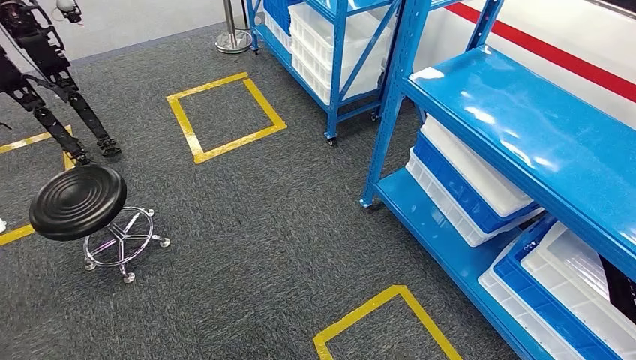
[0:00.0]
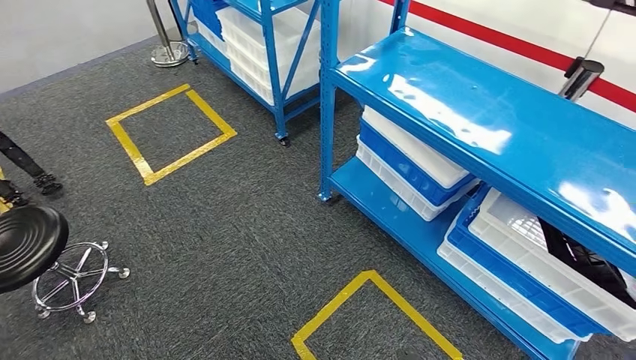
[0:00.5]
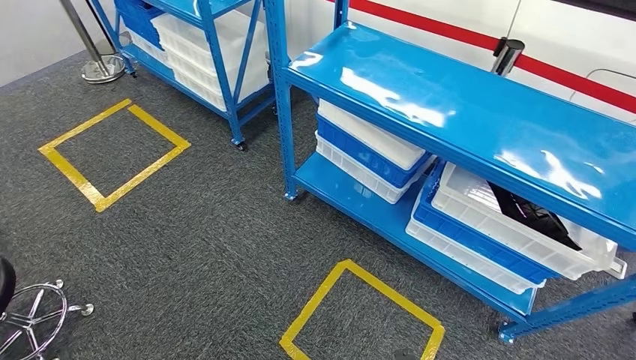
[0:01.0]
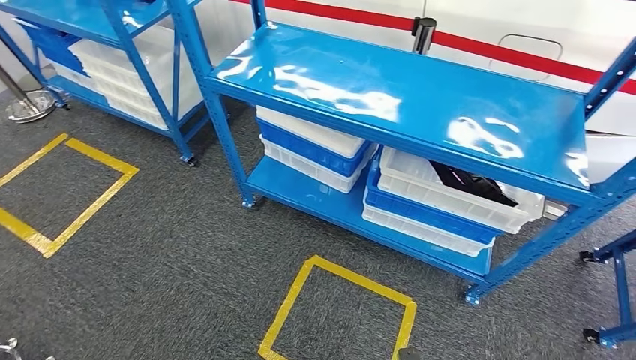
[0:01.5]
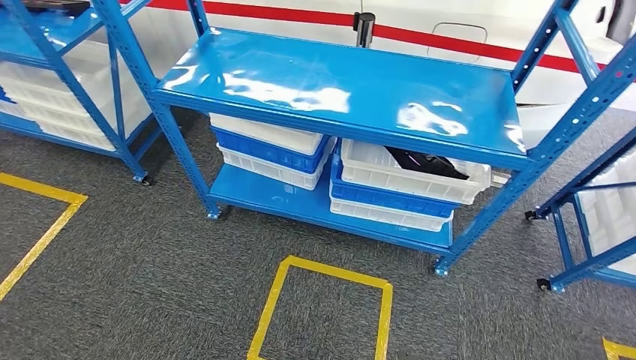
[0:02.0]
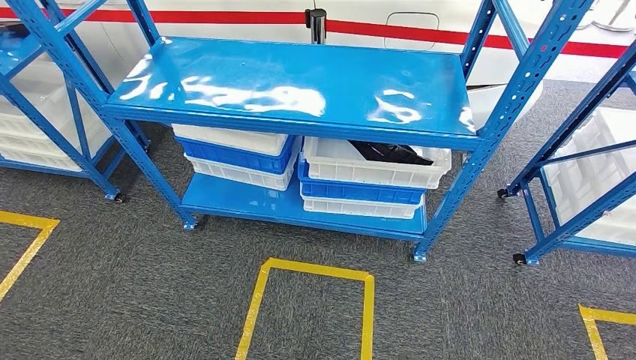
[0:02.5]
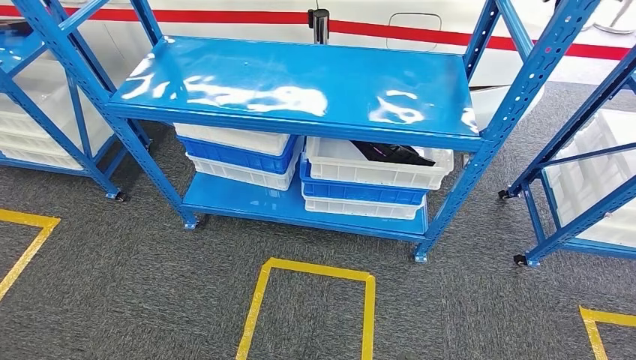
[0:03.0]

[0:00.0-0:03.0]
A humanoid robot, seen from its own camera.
Step, 0:00.0 to 0:03.0: Return to the initial position at the shelf.

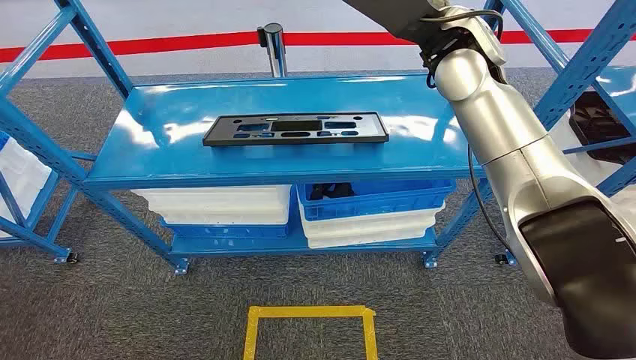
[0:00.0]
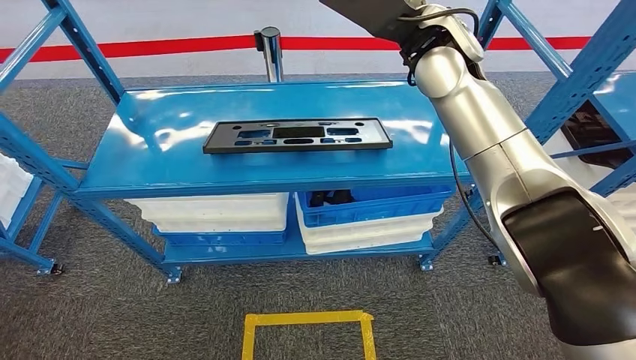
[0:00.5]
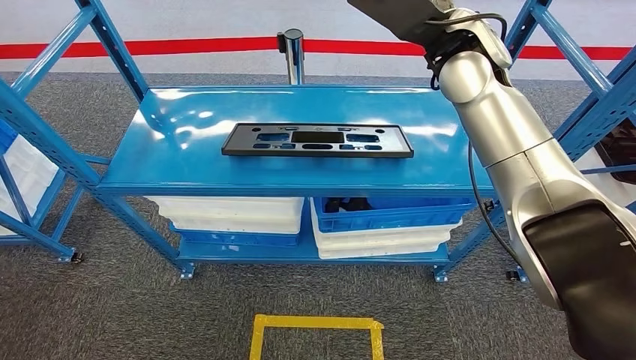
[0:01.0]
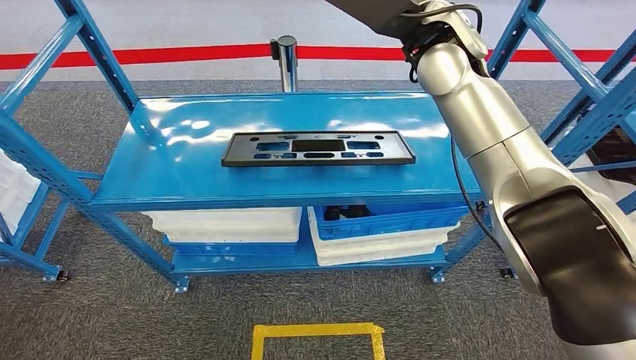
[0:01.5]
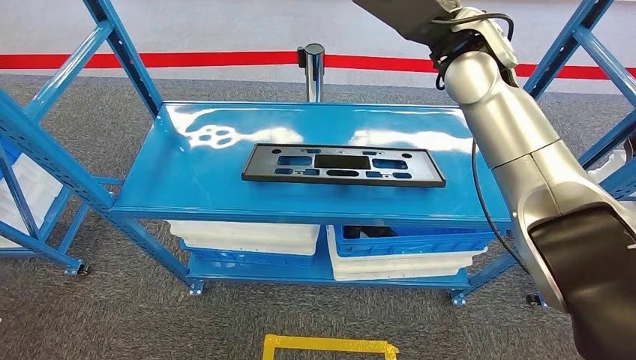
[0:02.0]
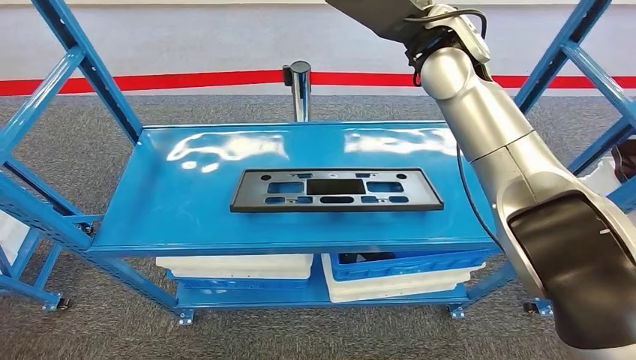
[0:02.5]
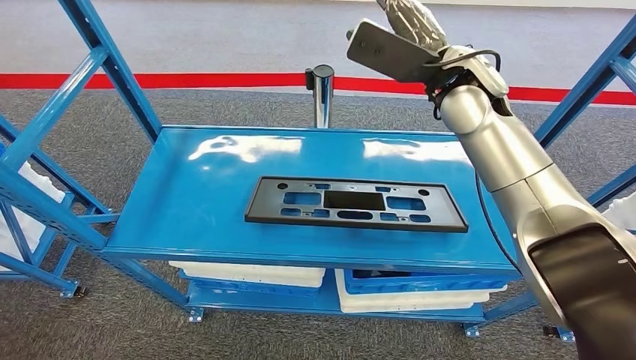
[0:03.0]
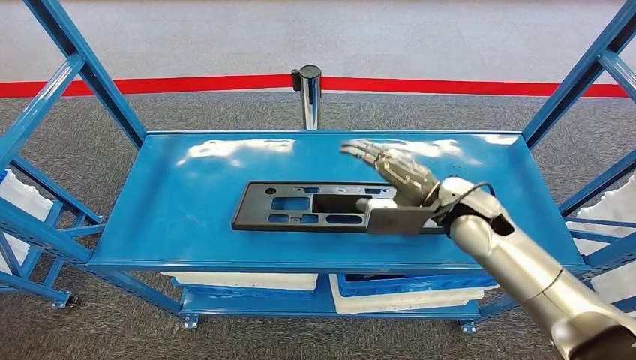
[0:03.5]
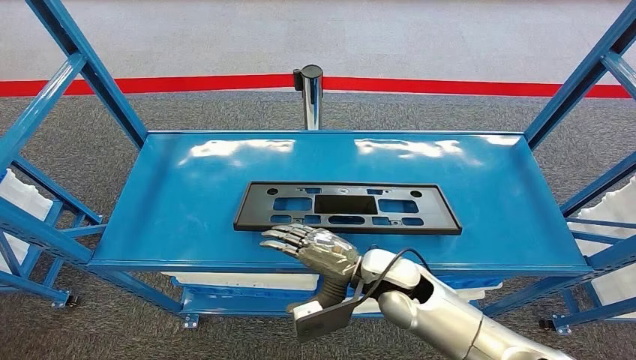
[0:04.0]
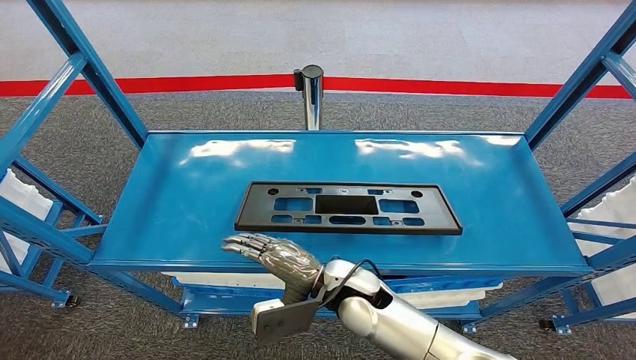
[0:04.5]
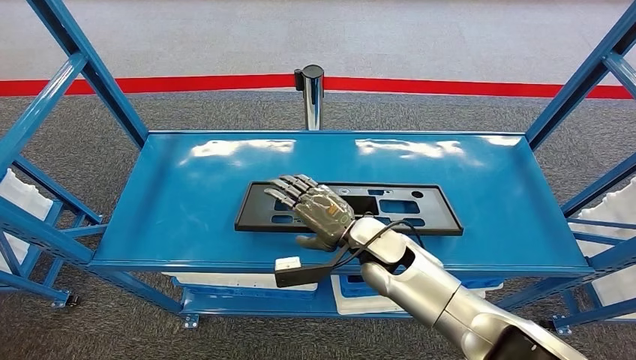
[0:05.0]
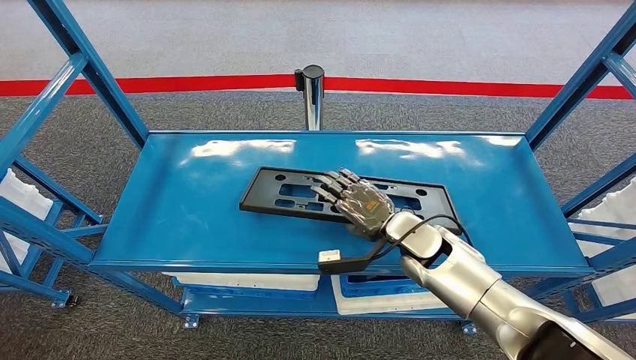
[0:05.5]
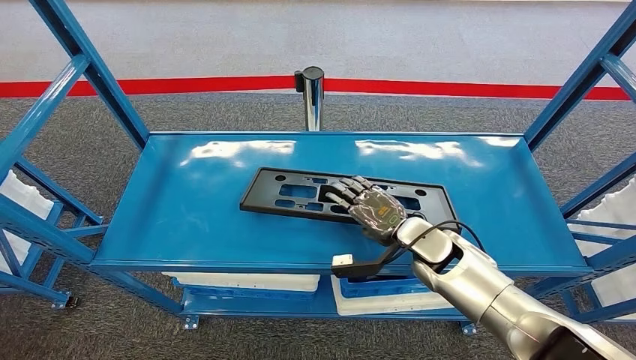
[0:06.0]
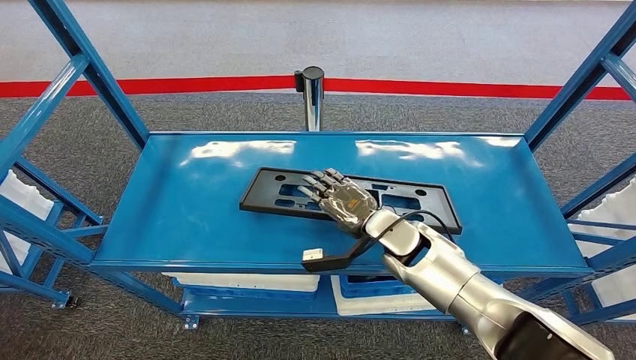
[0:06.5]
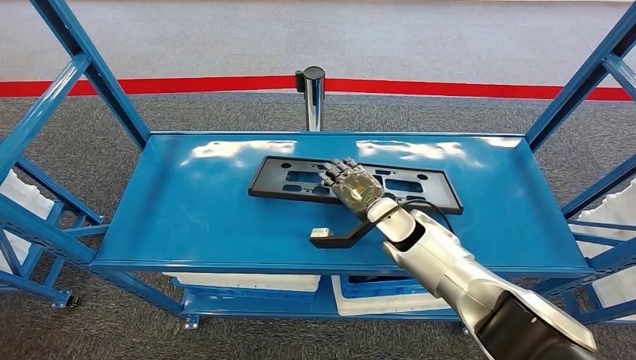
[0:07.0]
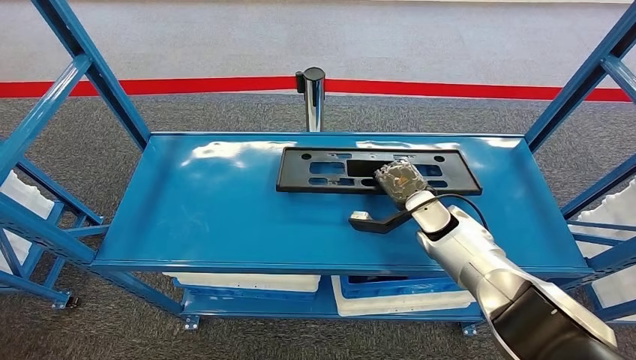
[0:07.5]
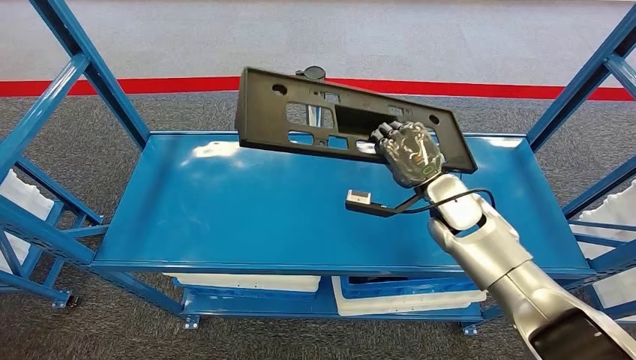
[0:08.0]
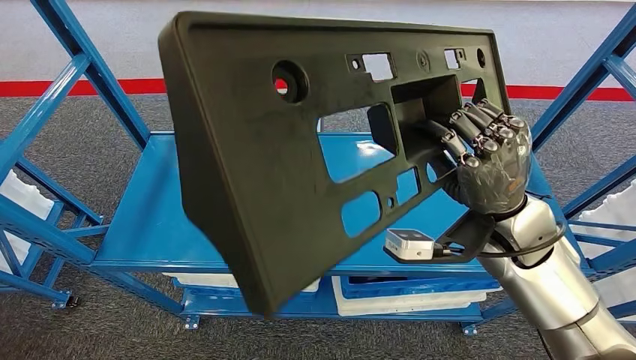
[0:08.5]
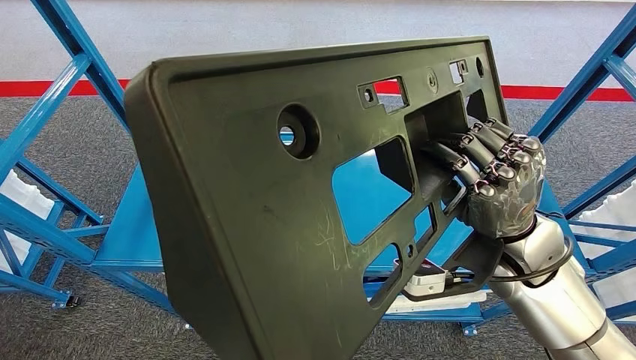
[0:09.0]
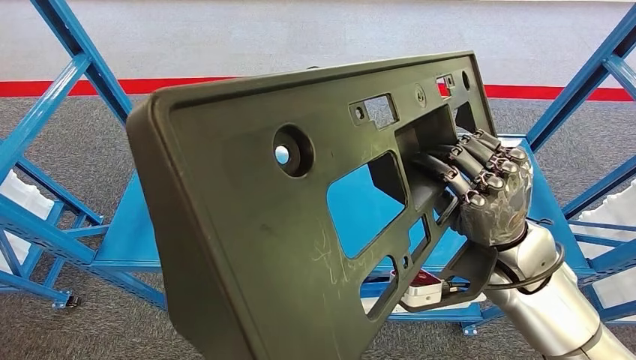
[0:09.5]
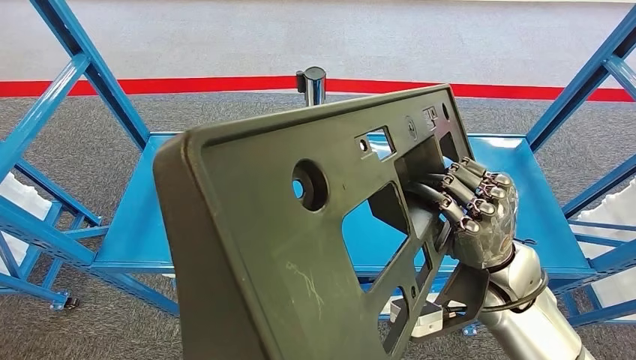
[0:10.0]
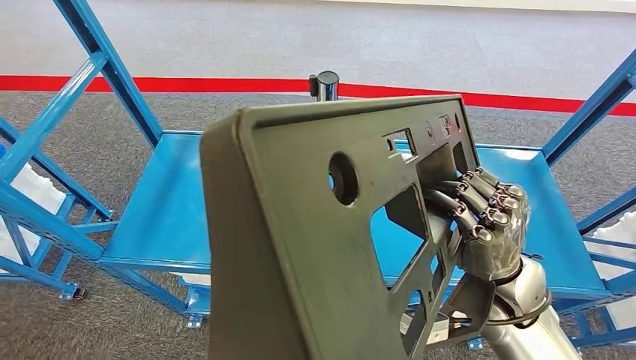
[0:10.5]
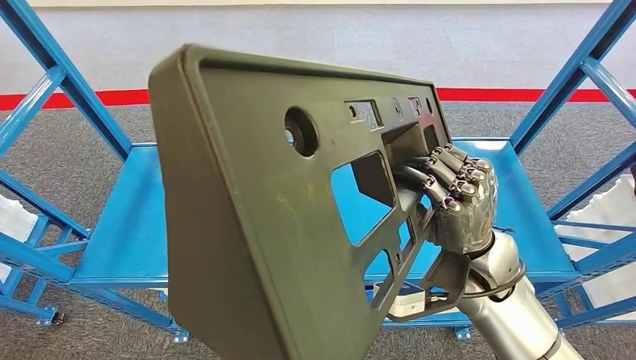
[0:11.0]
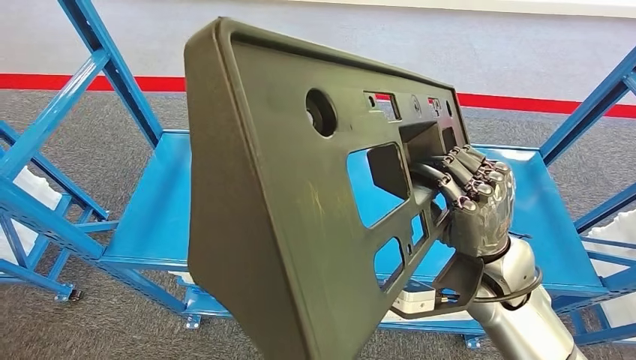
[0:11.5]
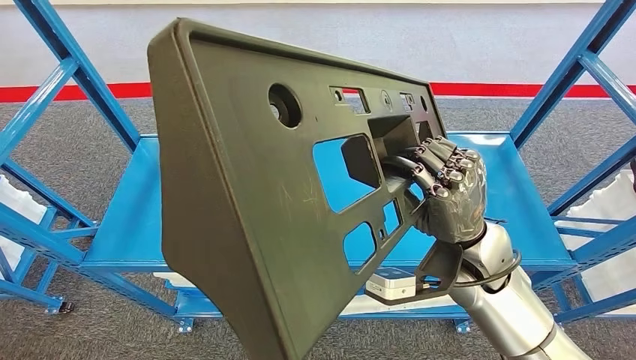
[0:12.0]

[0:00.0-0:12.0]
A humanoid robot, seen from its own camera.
Step, 0:00.0 to 0:10.5: Pick up the large material from the shelf.
0:04.0 to 0:06.0: The right hand heads to the right and forward, covering approximately 10 cm.

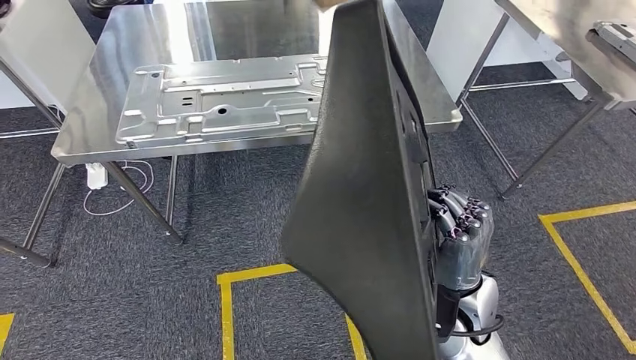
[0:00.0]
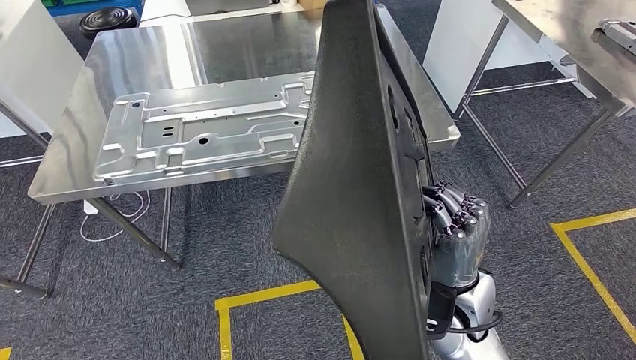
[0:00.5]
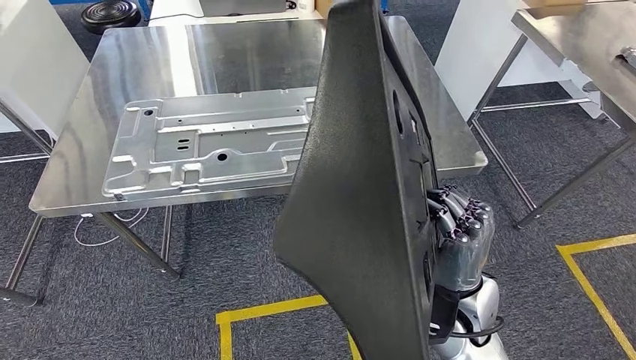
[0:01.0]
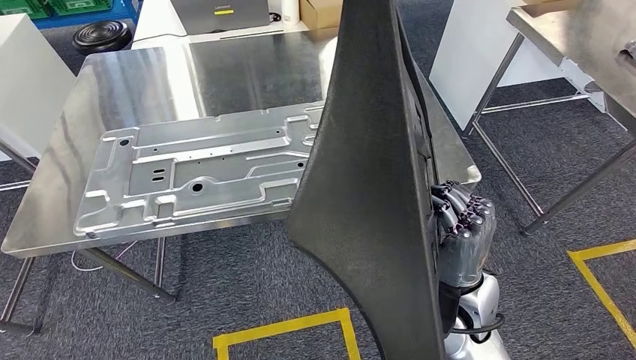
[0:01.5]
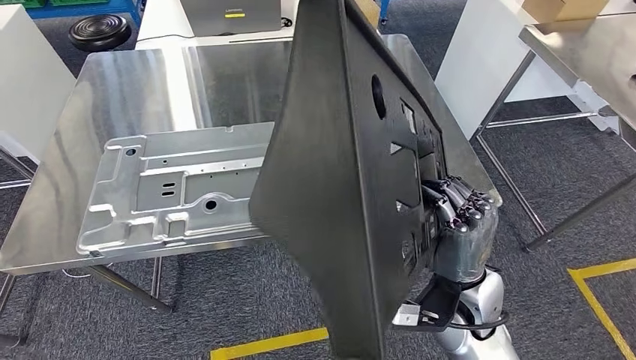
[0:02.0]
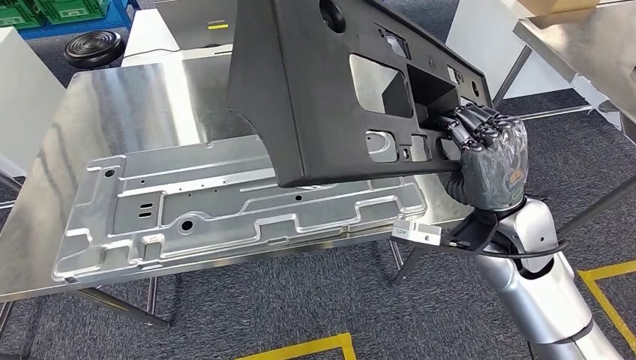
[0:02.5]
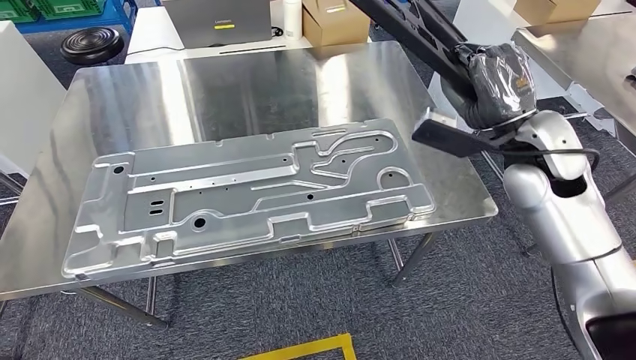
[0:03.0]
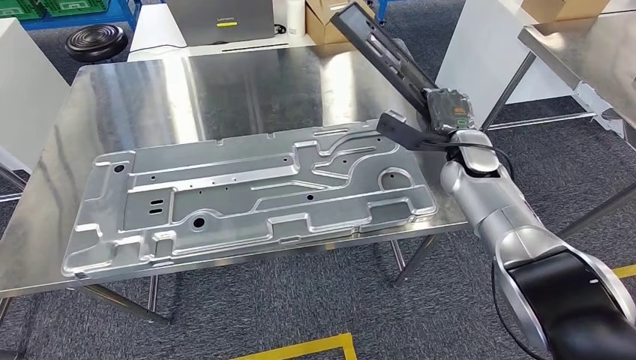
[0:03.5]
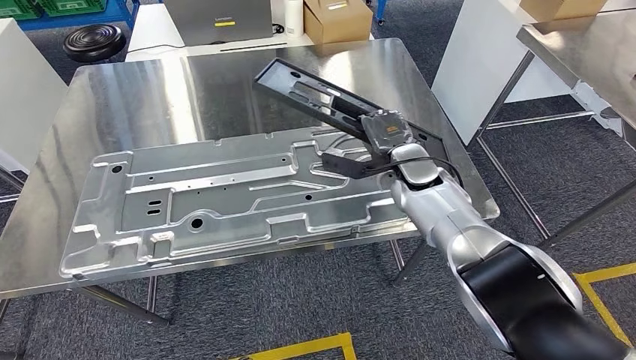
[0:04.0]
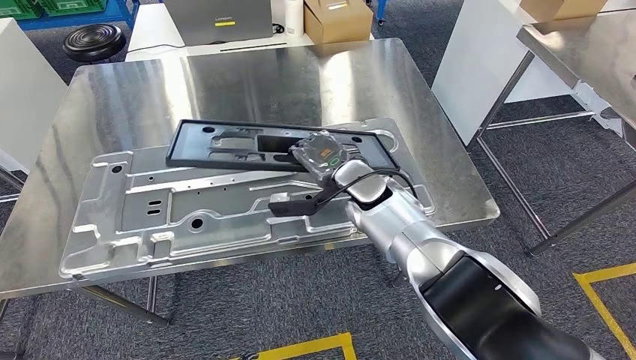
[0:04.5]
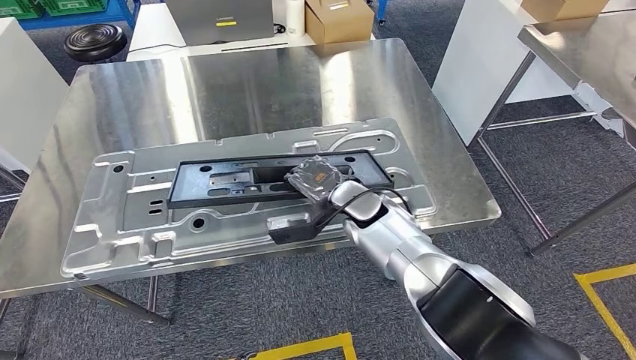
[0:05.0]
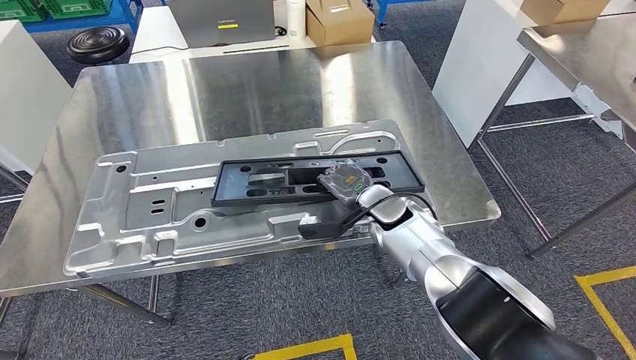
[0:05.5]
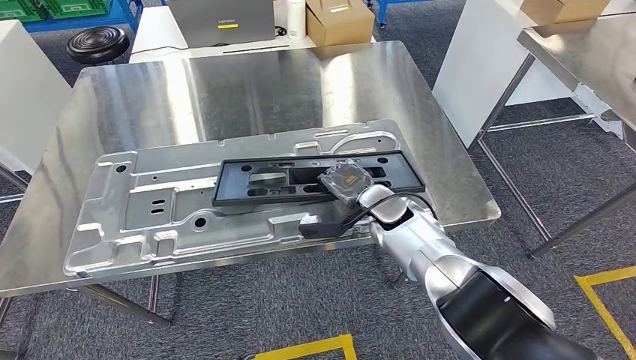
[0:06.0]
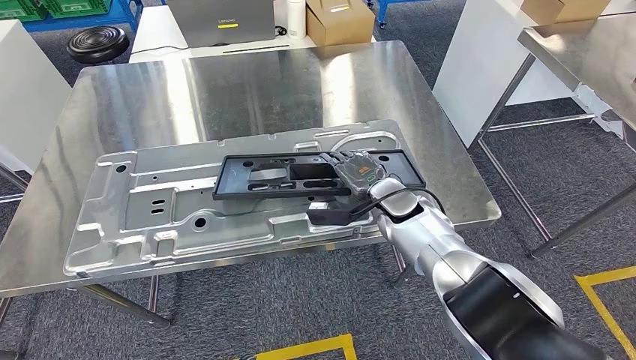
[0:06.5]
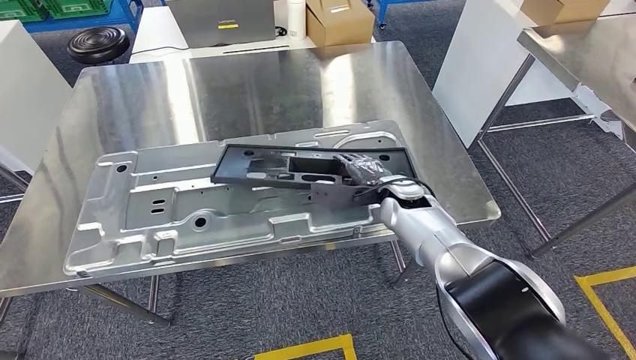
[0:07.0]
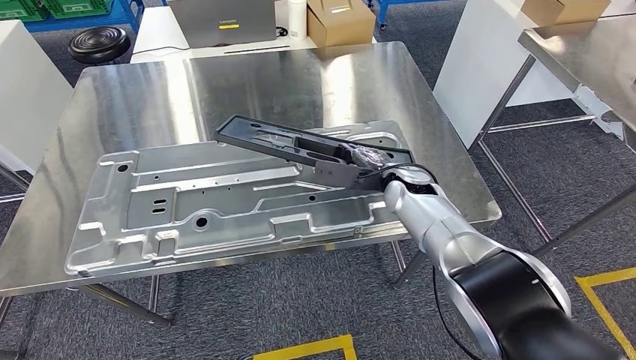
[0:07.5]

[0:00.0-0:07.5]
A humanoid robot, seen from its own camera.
0:05.5 to 0:07.5: The right hand moves approximately 5 cm.
